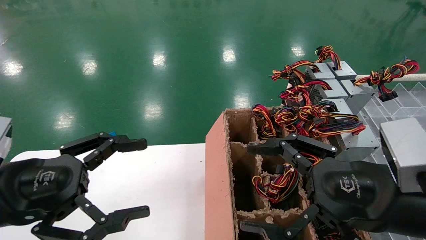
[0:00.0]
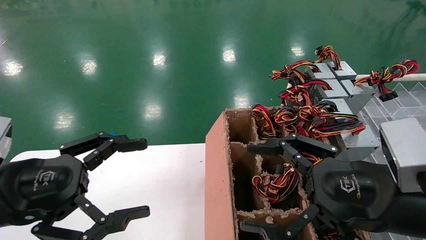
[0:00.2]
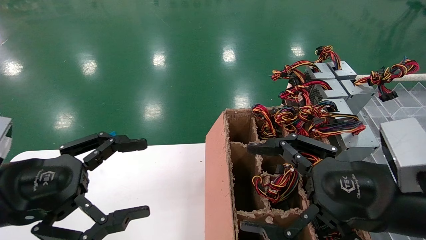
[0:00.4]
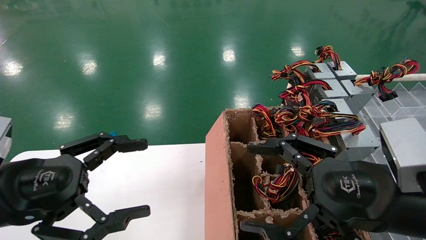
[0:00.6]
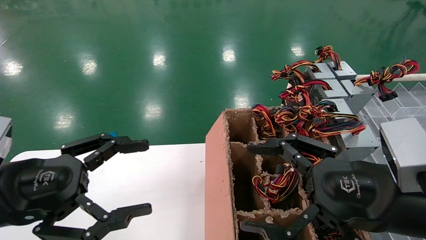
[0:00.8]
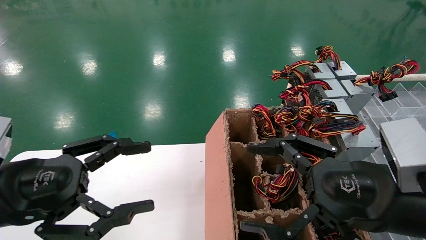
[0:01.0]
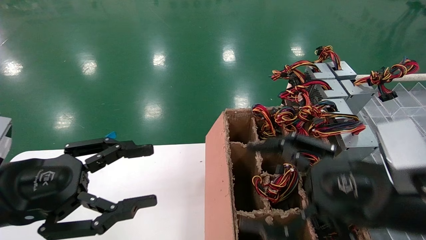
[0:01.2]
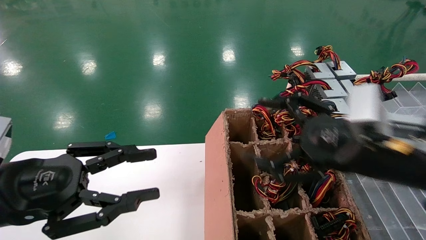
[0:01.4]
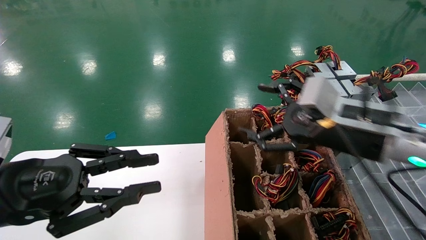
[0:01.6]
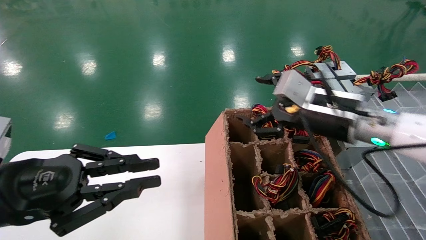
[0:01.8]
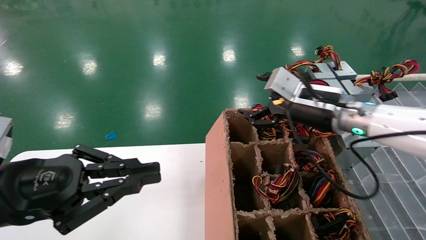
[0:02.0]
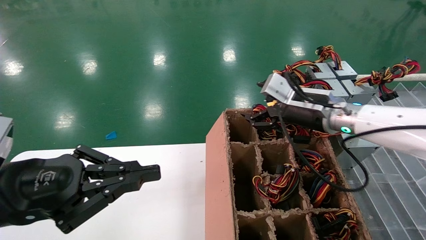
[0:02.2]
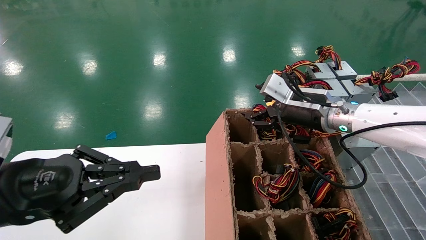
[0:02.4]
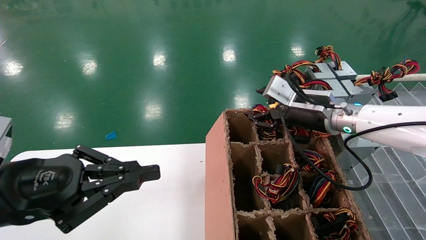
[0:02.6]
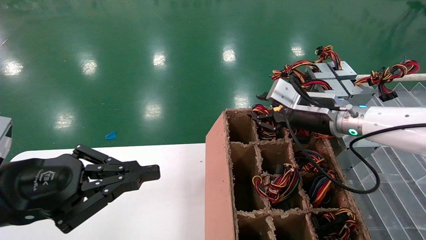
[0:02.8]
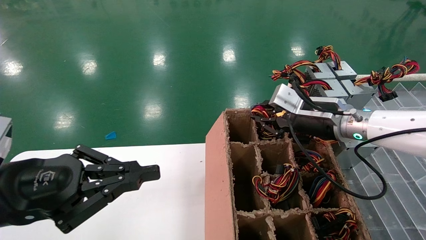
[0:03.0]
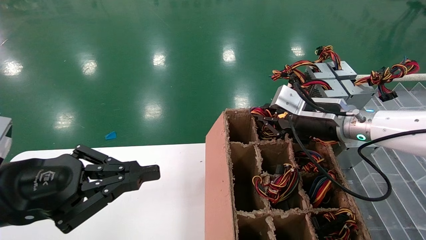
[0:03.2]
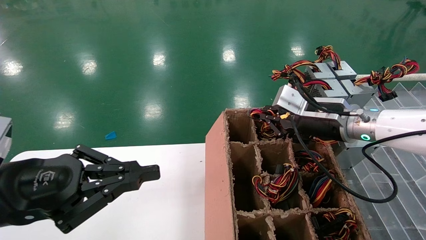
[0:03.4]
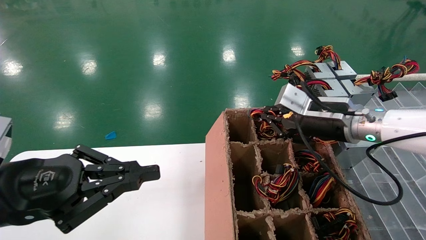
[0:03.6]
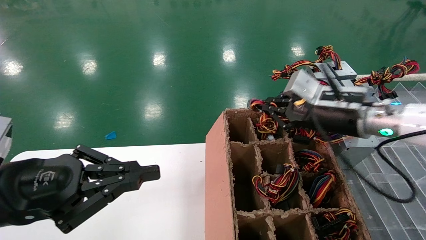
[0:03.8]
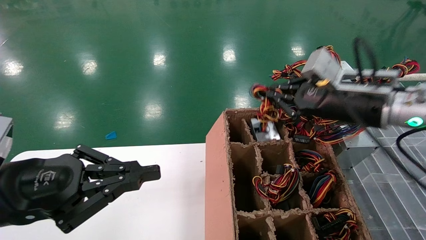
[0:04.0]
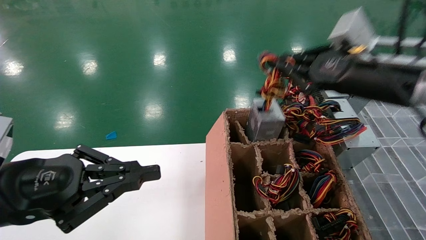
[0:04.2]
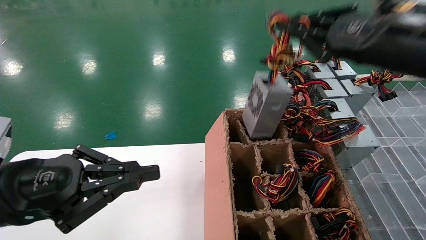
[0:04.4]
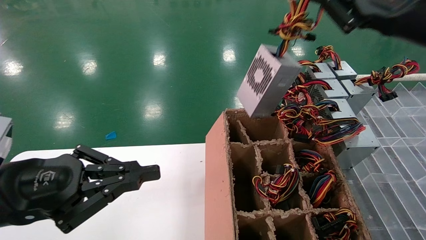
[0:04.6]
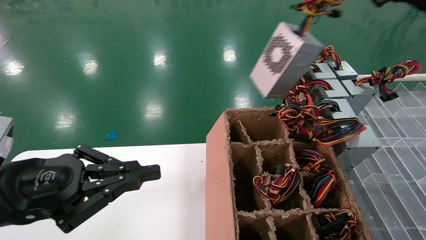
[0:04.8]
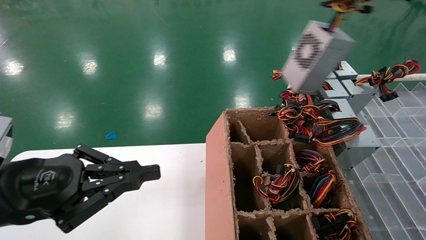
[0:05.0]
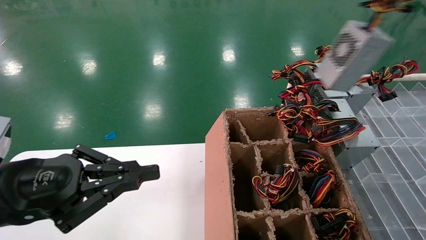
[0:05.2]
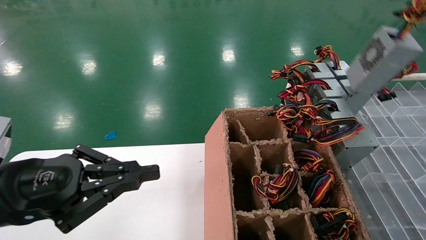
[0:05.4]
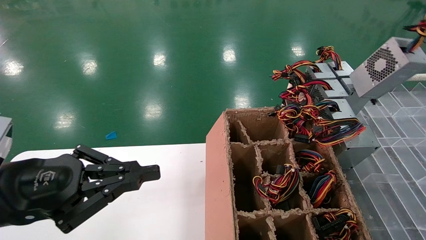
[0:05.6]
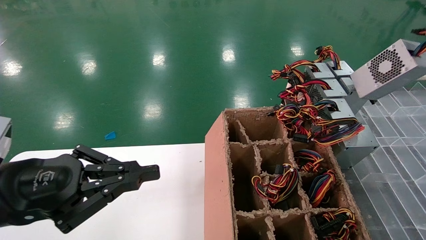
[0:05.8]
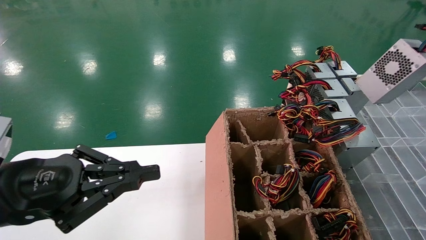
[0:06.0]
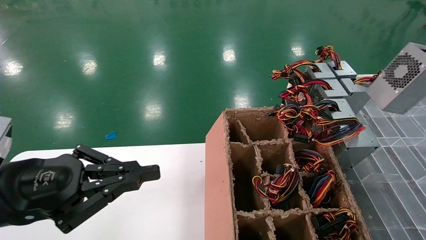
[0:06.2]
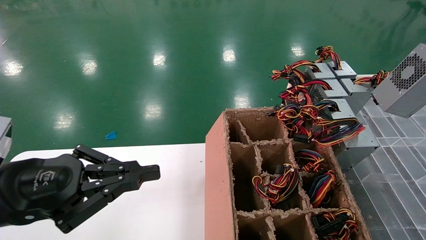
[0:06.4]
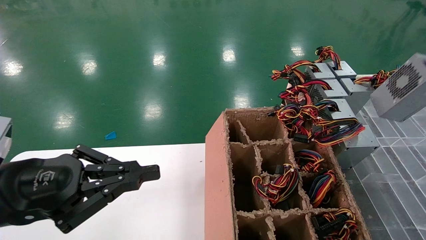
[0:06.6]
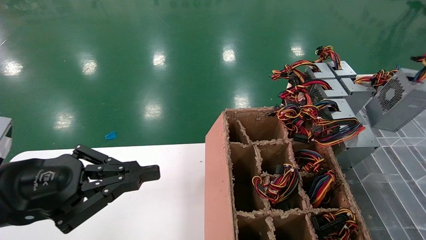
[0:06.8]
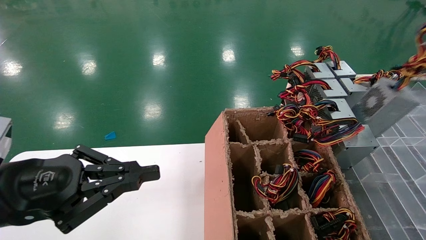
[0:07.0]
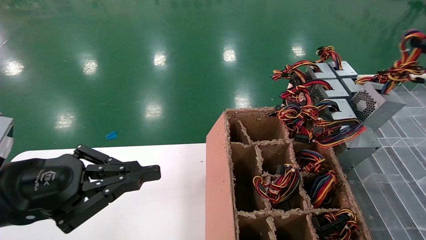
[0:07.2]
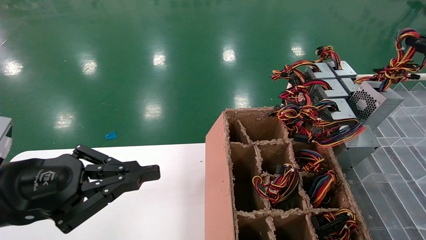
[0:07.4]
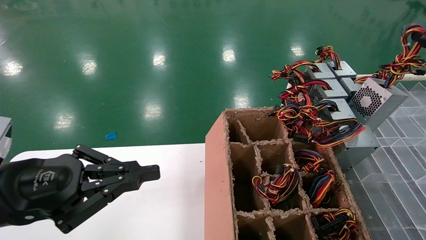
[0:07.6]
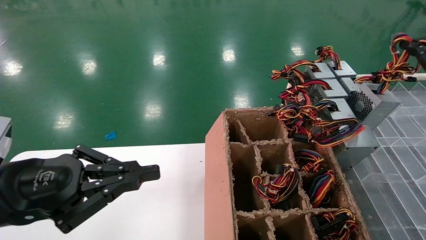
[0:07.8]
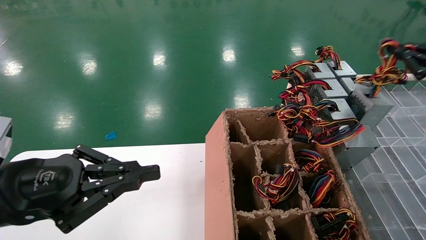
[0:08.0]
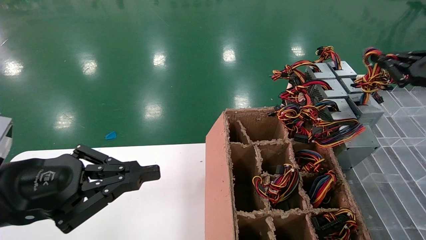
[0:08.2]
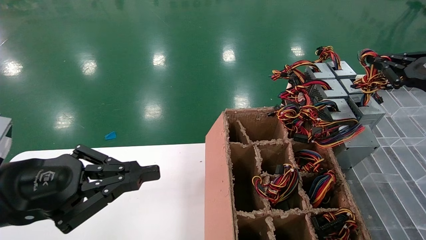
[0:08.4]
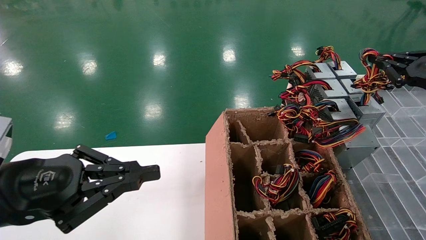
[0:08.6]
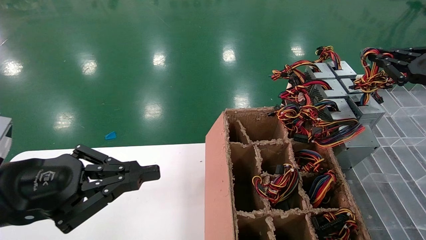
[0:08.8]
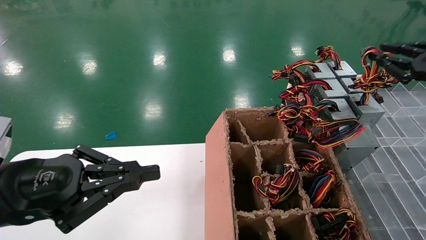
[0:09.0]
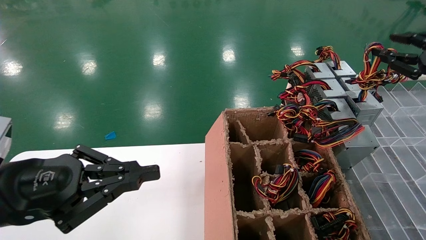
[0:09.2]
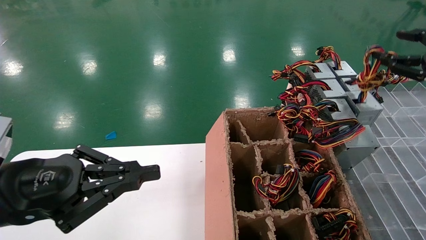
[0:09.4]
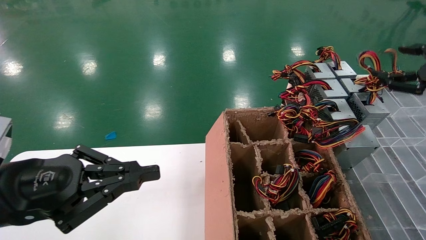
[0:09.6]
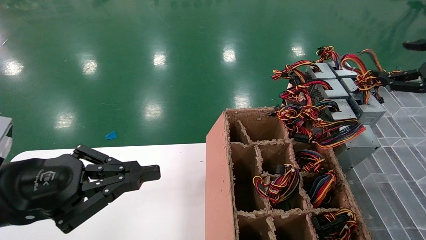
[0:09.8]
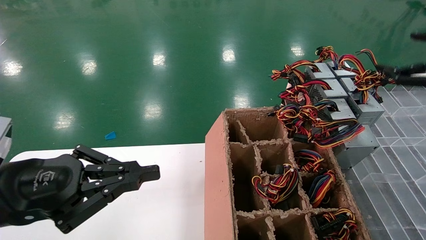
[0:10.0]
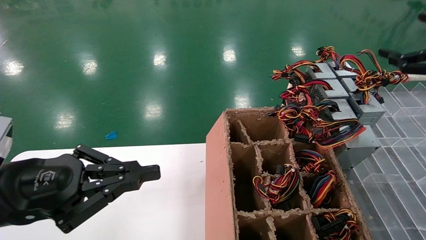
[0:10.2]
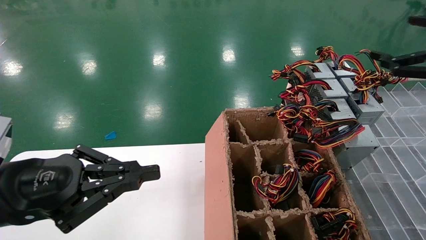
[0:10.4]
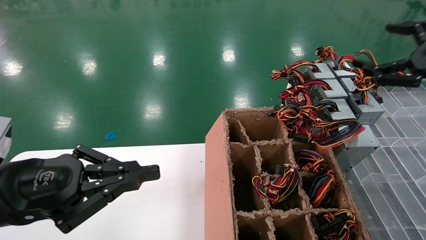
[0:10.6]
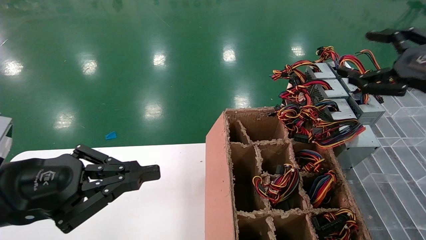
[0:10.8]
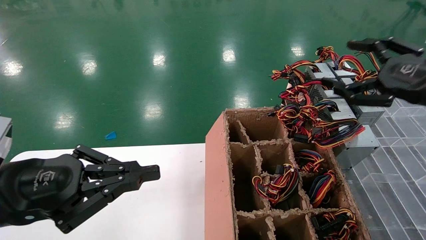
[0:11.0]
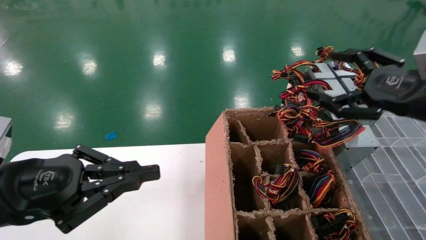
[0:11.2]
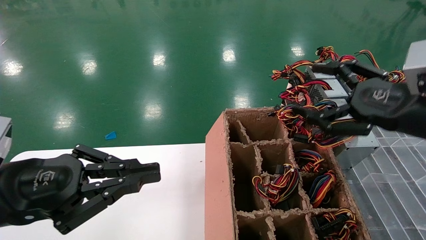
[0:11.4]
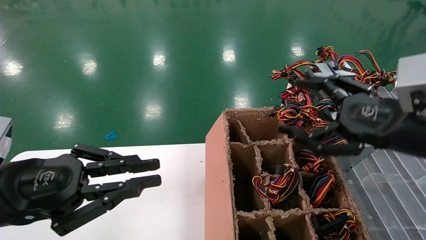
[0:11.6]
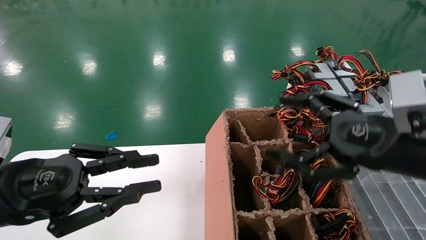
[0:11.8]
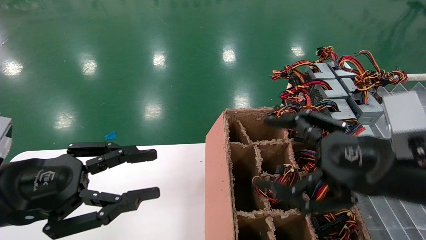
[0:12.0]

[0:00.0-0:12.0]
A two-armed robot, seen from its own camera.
Step, 0:01.6 to 0:03.4: Grab the main unit power supply from the containment box.
Step, 0:03.6 to 0:10.0: Place the main unit power supply in the designated area.
0:00.0 to 0:01.6: The left gripper closes, while the right gripper travels forward by about 10 cm.
0:01.6 to 0:03.0: The left gripper closes its fingers. Meanwhile the right gripper heads forward, covering roughly 10 cm, and closes its fingers.
0:03.0 to 0:04.4: The right gripper heads upward, backward and to the right, covering roughly 20 cm, and closes up.
0:04.4 to 0:06.0: The right gripper travels to the right by roughly 25 cm.
0:06.0 to 0:07.6: The right gripper travels forward and downward by about 10 cm.
0:07.6 to 0:09.0: The grippers move only a little.
0:09.0 to 0:10.4: The right gripper opens its fingers.
0:10.4 to 0:12.0: The right gripper travels to the left, downward and backward by some 25 cm.

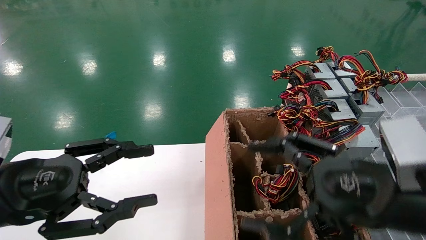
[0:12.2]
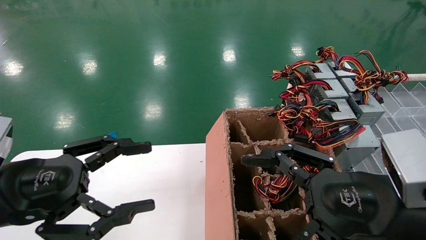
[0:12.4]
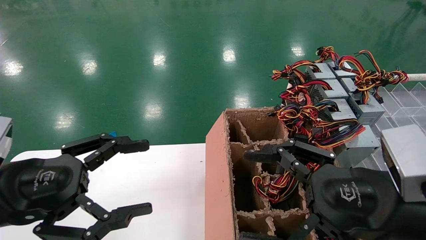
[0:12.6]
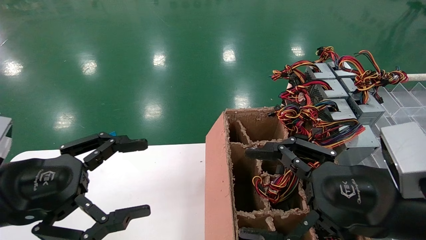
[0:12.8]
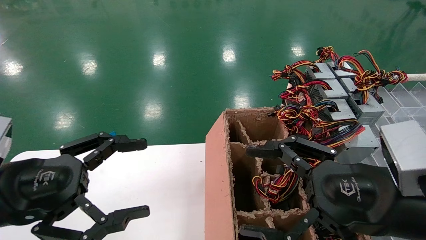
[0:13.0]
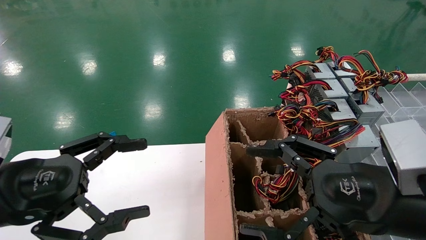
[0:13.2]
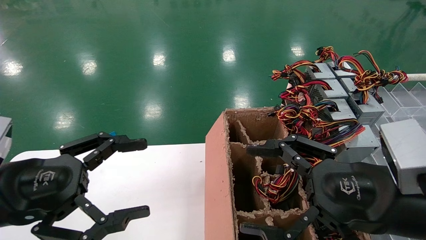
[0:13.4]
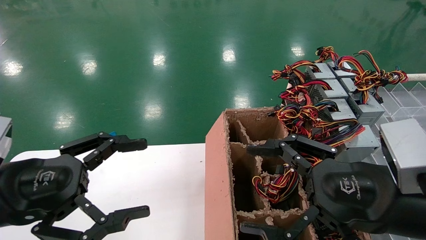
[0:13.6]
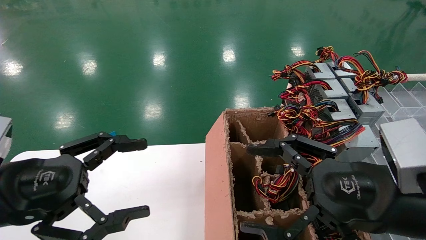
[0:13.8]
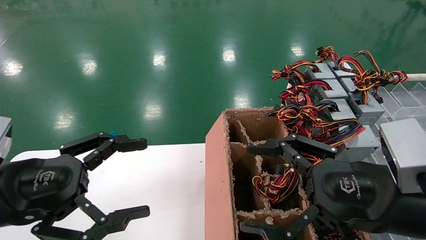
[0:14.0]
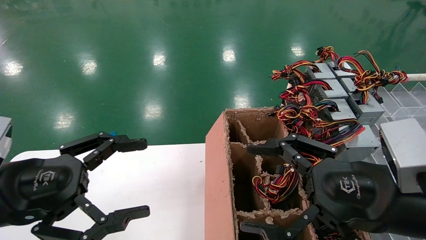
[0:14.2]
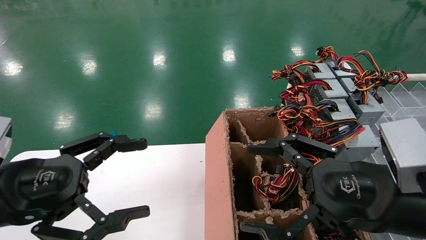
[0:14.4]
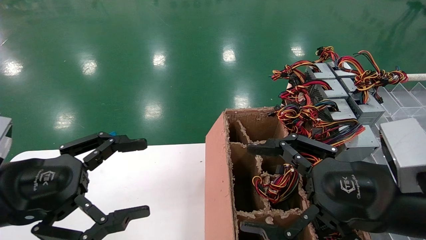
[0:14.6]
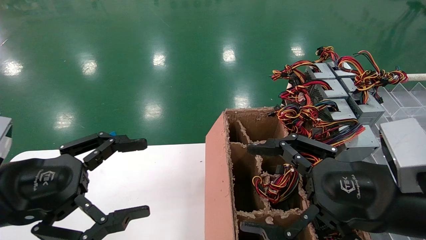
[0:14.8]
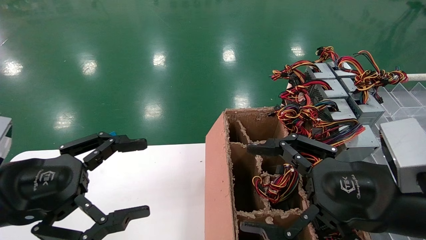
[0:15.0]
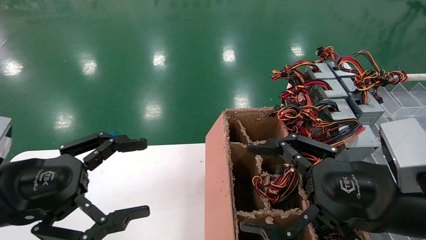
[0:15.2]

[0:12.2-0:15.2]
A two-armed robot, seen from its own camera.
0:12.2 to 0:13.8: The left gripper opens.
0:13.8 to 0:15.2: Both grippers stay about where they are.
